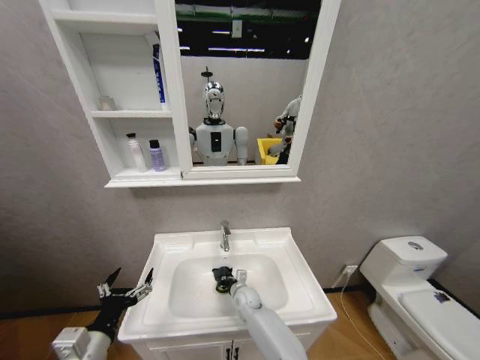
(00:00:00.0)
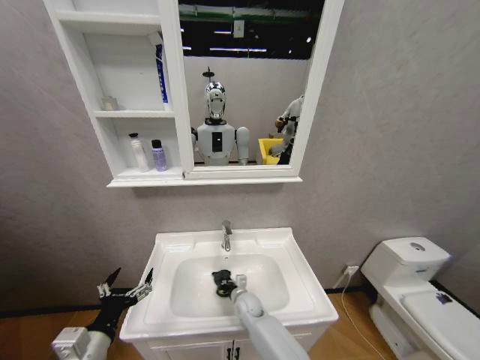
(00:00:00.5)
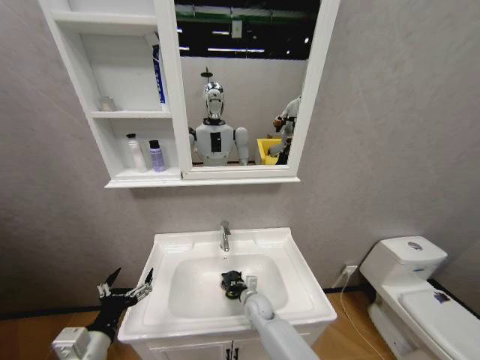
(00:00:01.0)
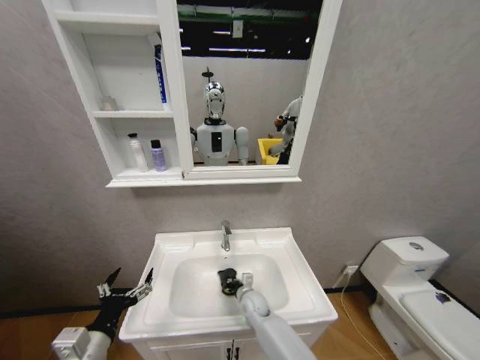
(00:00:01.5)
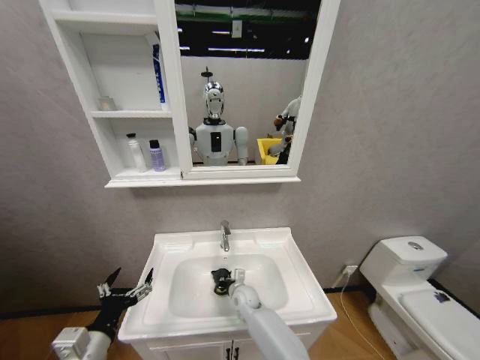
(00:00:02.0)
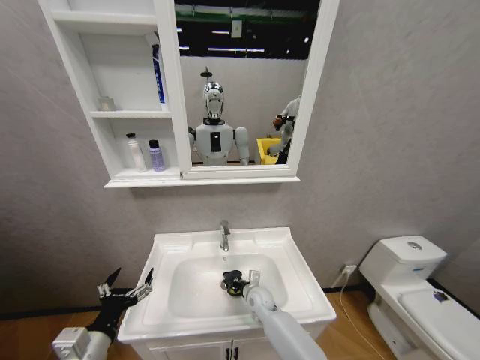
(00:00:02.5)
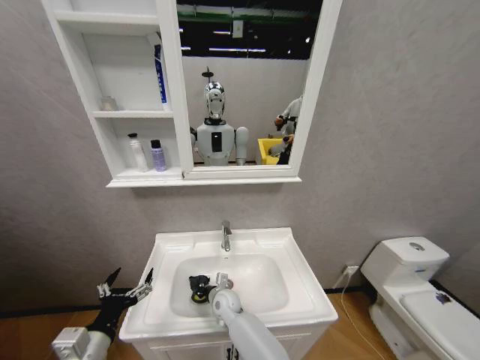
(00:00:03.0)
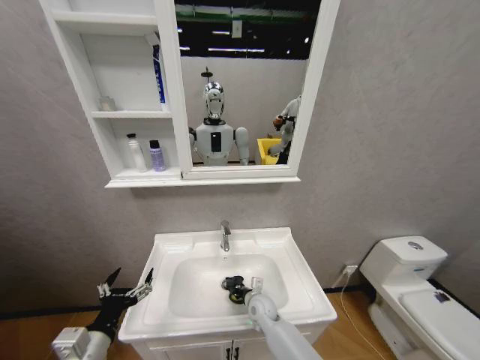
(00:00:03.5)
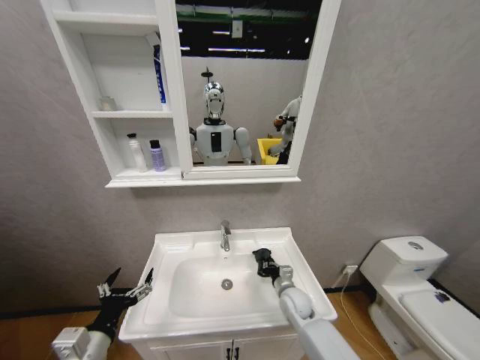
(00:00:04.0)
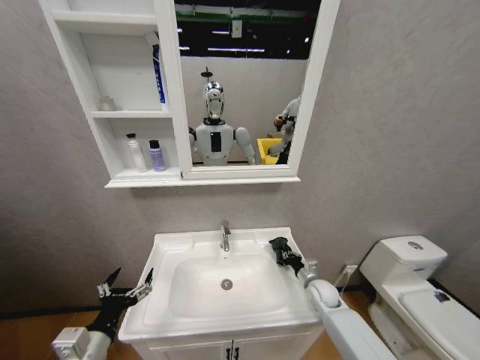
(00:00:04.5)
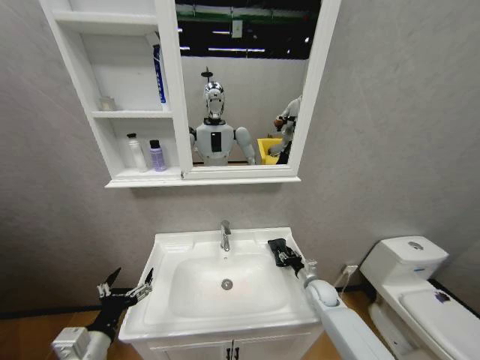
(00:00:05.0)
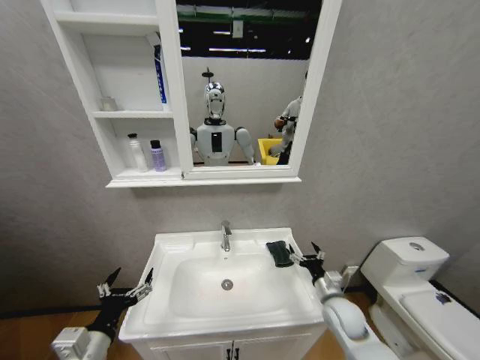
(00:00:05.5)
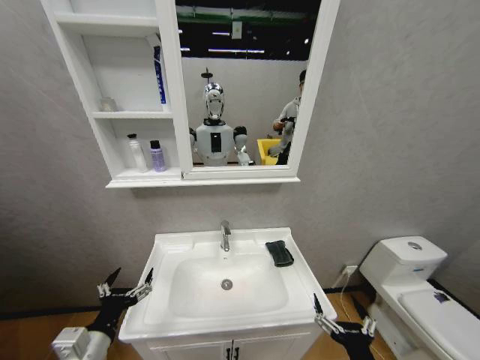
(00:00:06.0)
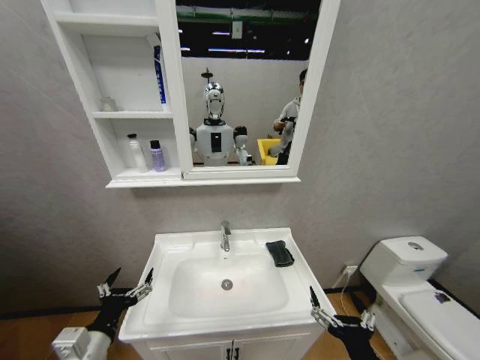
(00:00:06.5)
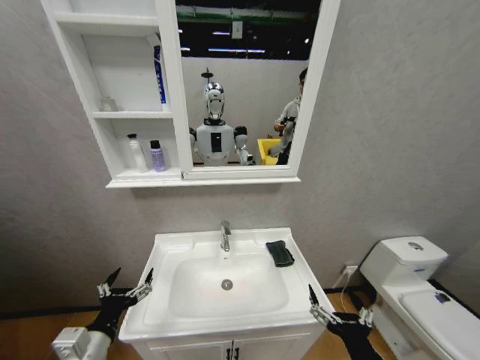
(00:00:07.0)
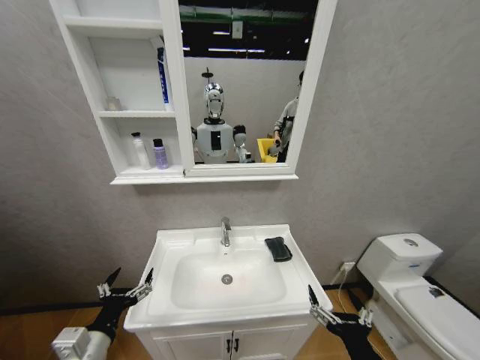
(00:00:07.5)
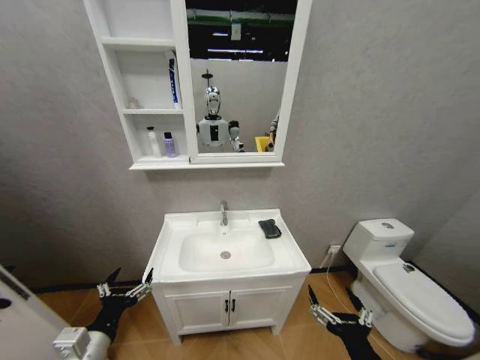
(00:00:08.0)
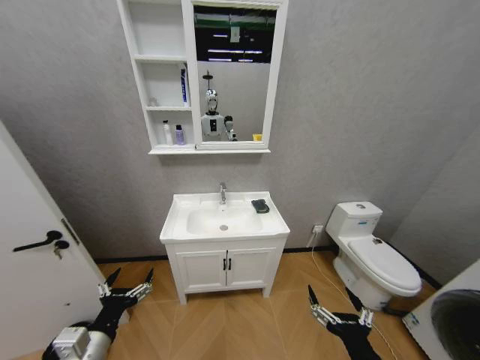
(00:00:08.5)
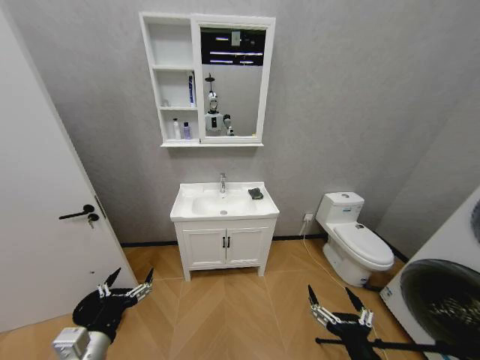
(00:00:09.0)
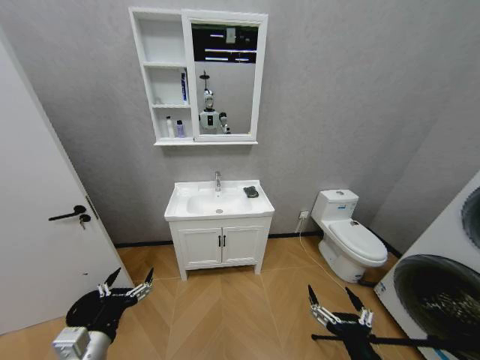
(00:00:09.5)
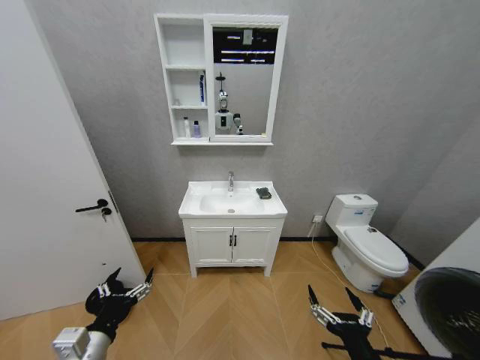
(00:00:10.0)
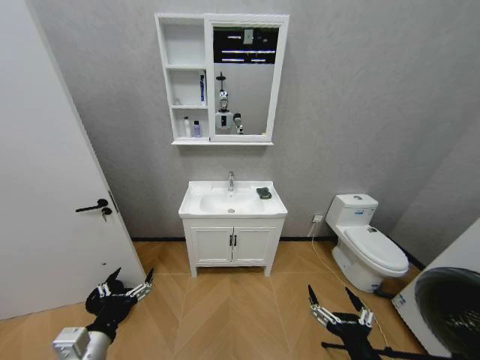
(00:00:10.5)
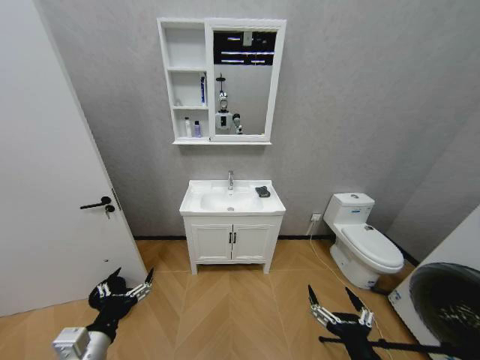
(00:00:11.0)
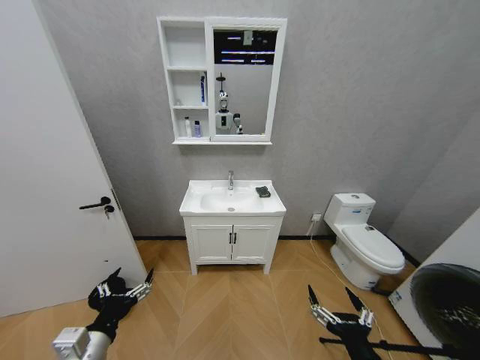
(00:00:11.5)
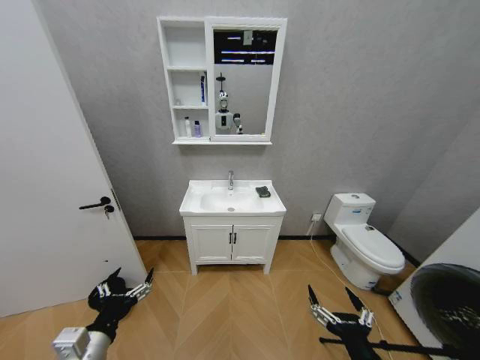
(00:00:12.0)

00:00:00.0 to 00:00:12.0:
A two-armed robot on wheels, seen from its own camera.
Task of the whole recording: Move facial cleanser and shampoo from washbasin to cabinet, then wipe washbasin with towel.
00:00:02.0 to 00:00:04.0: The right gripper travels to the right by approximately 15 cm.
00:00:04.0 to 00:00:06.0: The right gripper moves backward, some 30 cm, and opens.
00:00:06.0 to 00:00:08.0: The right gripper moves upward, approximately 5 cm.
00:00:10.0 to 00:00:12.0: Both grippers stay about where they are.
